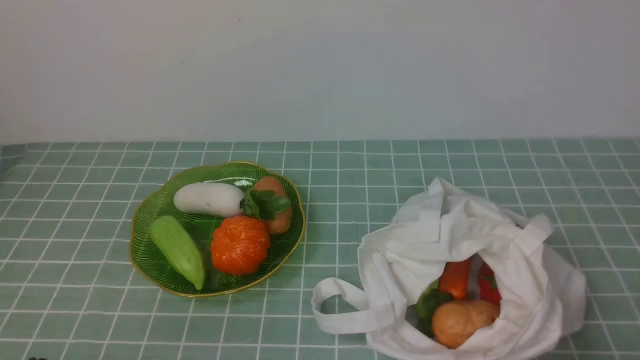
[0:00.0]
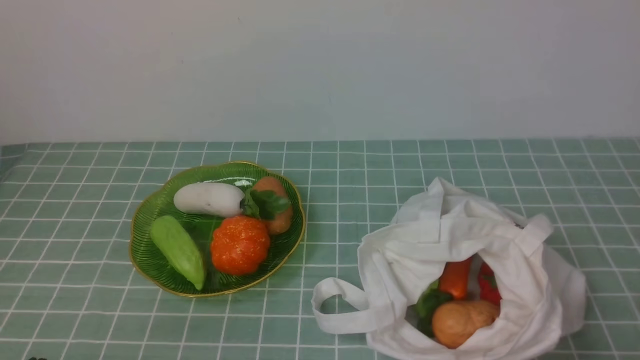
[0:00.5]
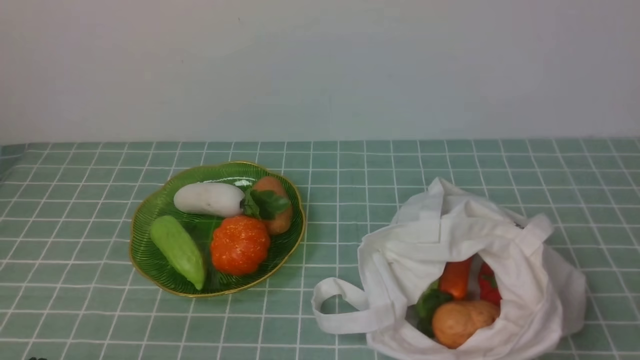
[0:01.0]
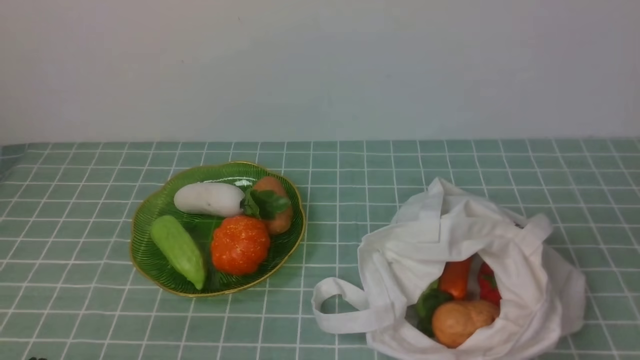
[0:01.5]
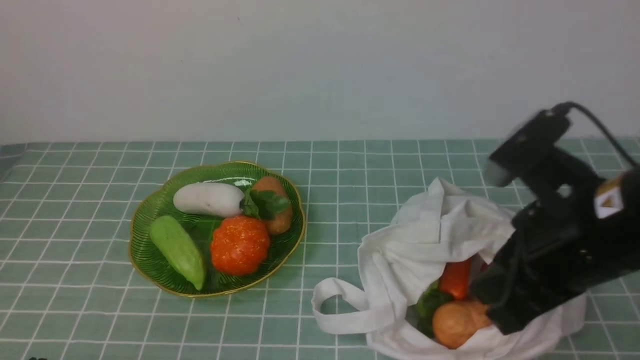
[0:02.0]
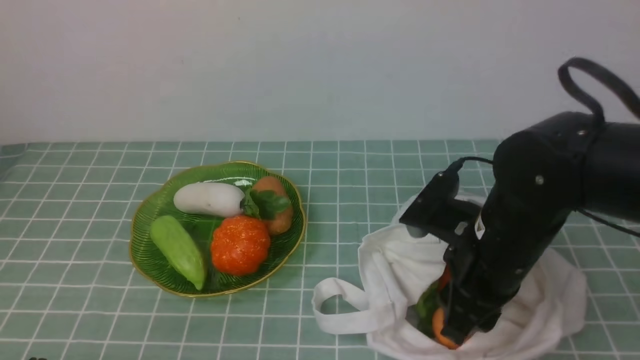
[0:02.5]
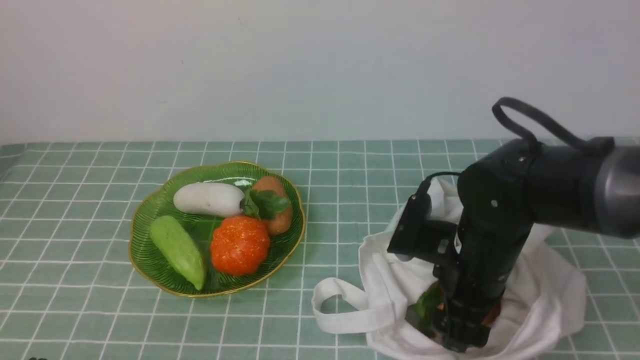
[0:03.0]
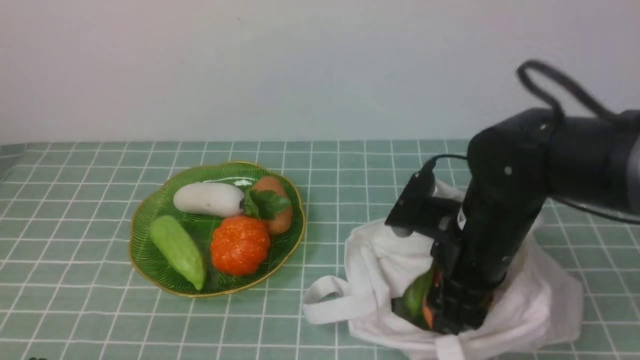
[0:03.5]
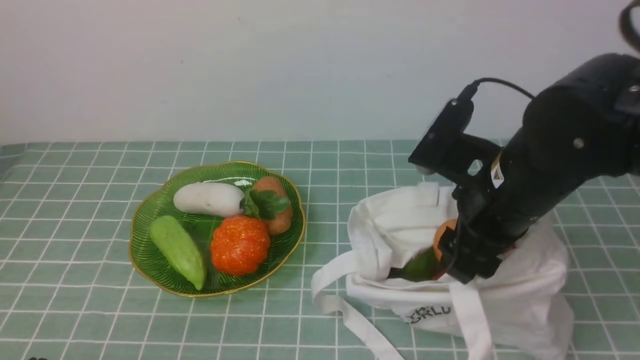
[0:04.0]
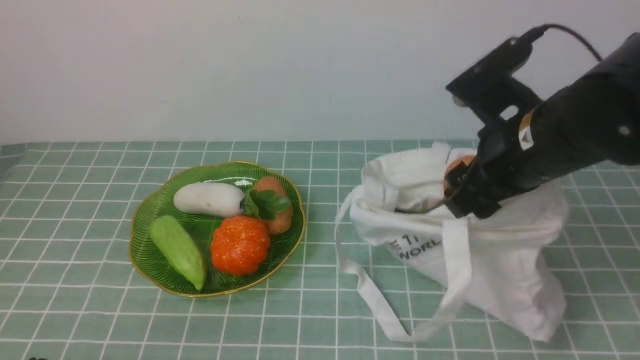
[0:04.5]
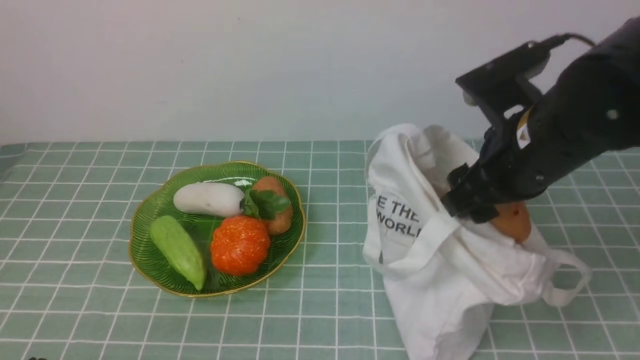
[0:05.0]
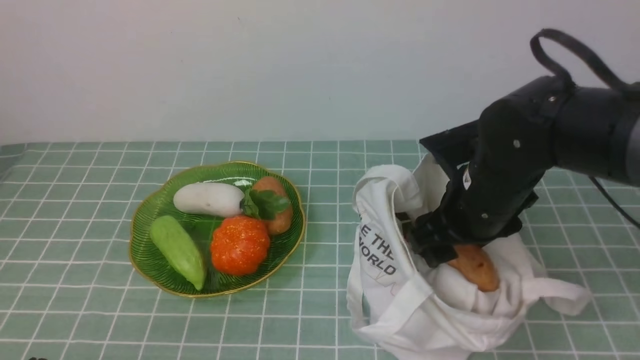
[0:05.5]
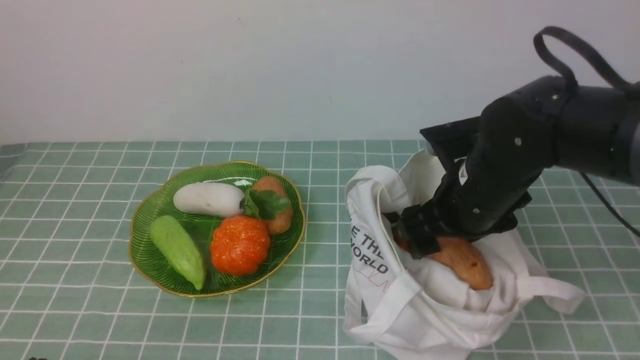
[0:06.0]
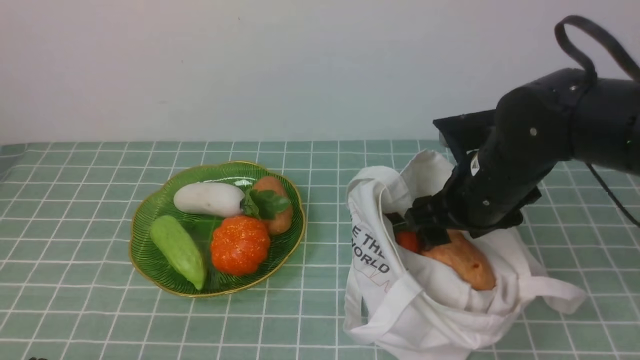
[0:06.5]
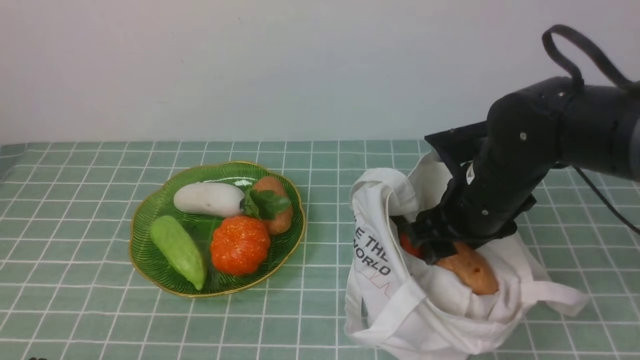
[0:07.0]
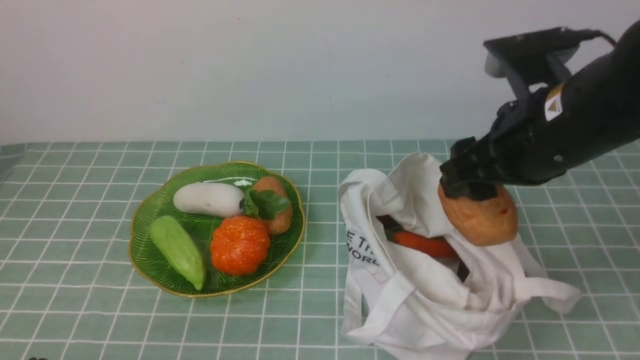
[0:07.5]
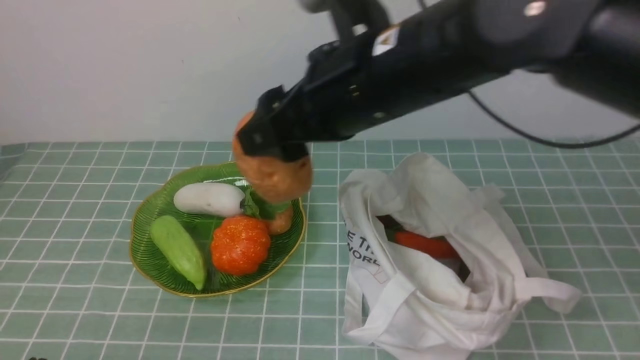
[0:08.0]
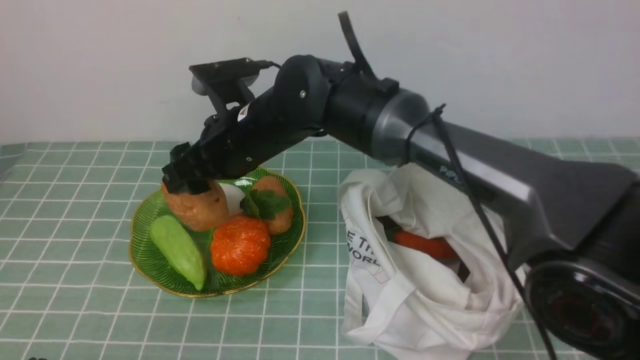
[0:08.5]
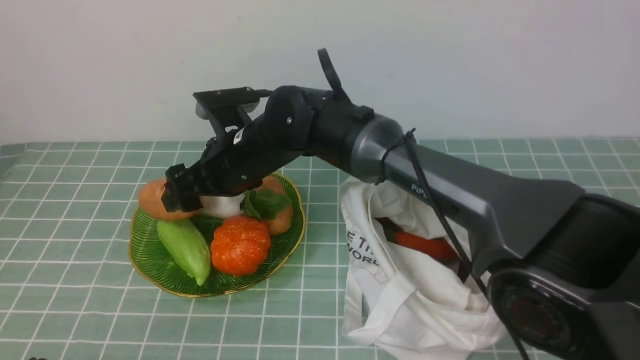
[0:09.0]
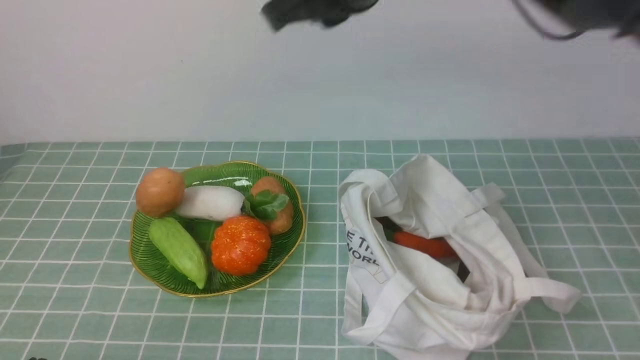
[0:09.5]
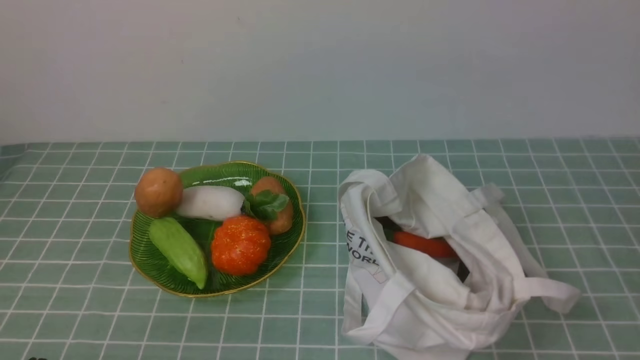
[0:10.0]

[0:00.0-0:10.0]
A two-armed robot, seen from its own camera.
Task of the whole recording: take vegetables from cloth bag on blue coffee tablecloth place on plate.
Step, 0:00.0 to 0:03.0: Grasp the potato with right gripper.
Step, 0:03.5 to 0:09.0: Place the potato on the plate with right gripper.
0:00.0 to 0:02.0: The right gripper moves forward, to the left and upward, some 25 cm.
0:02.0 to 0:04.0: The right gripper heads forward, covering approximately 10 cm, reaches about 10 cm downward, then returns, and opens its fingers.
0:06.0 to 0:08.0: The right gripper is displaced upward and to the left by some 15 cm.
0:08.0 to 0:10.0: The right gripper shifts some 30 cm to the right, upward and backward, and closes its fingers.

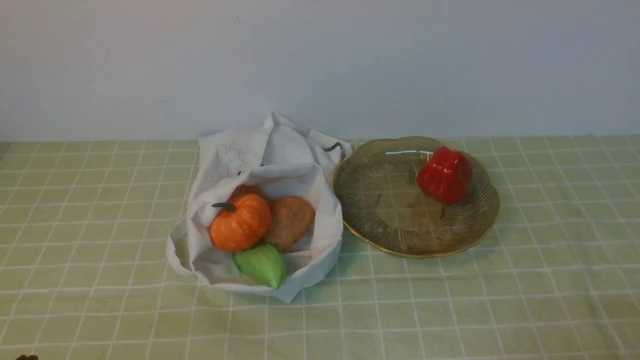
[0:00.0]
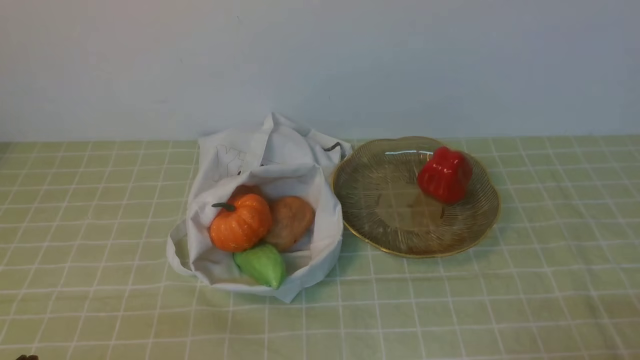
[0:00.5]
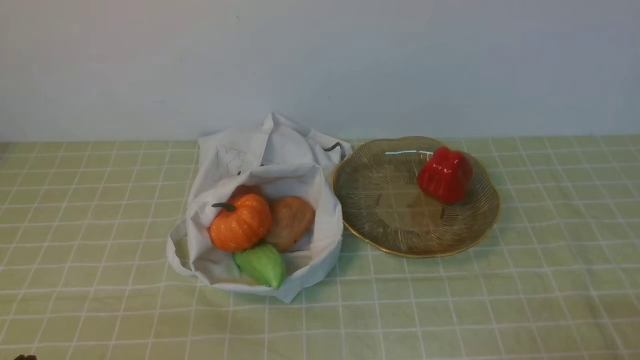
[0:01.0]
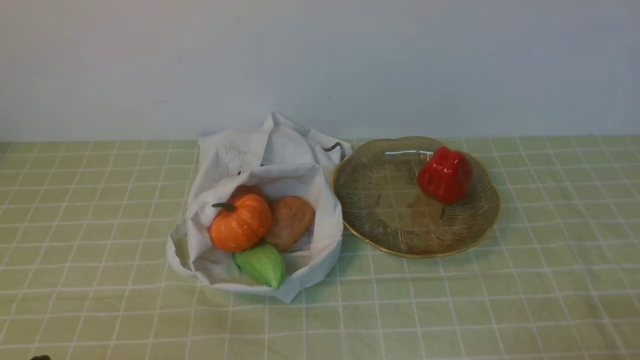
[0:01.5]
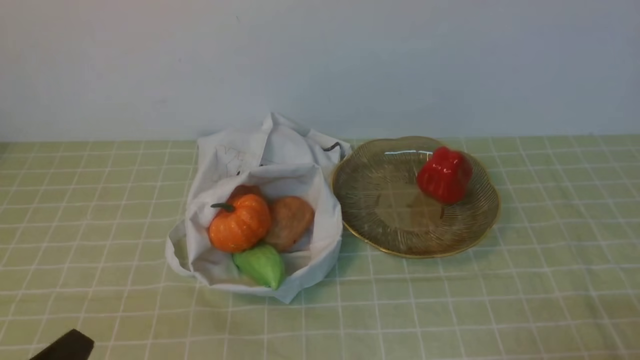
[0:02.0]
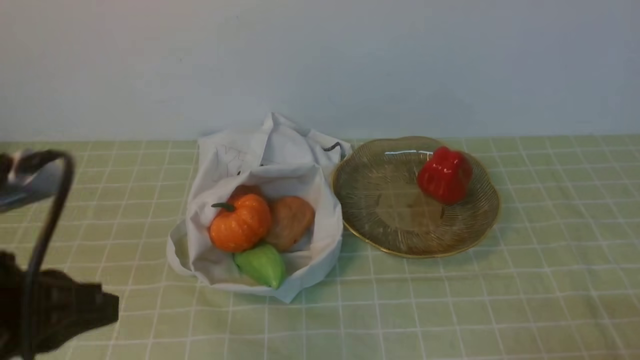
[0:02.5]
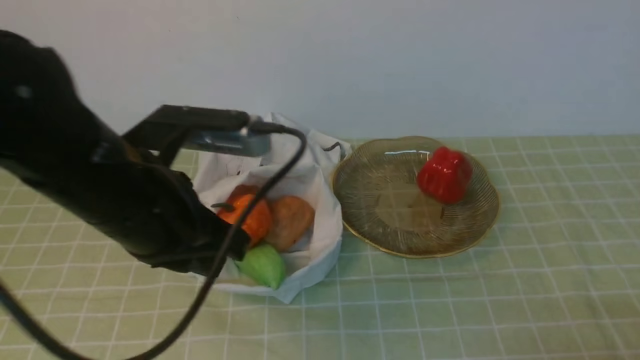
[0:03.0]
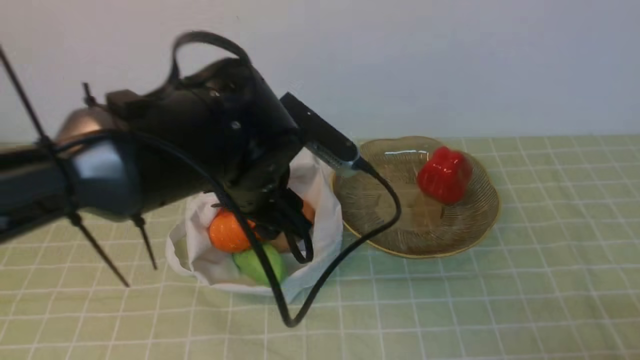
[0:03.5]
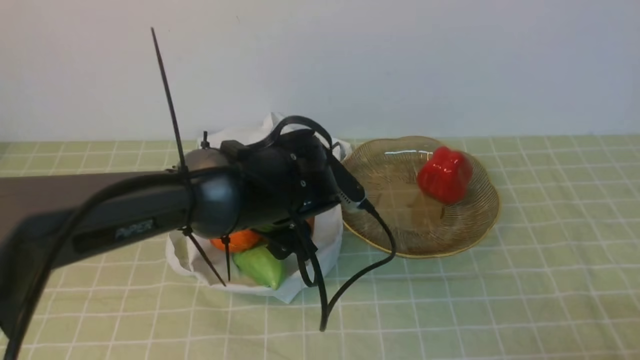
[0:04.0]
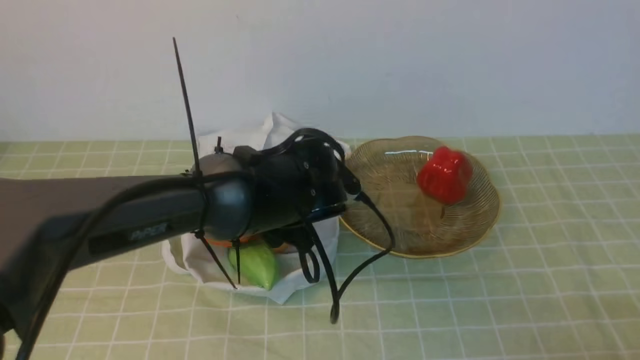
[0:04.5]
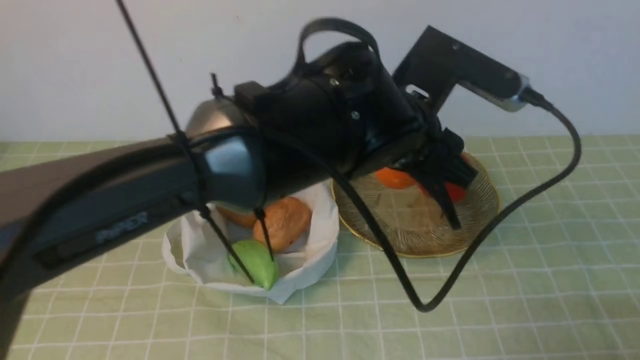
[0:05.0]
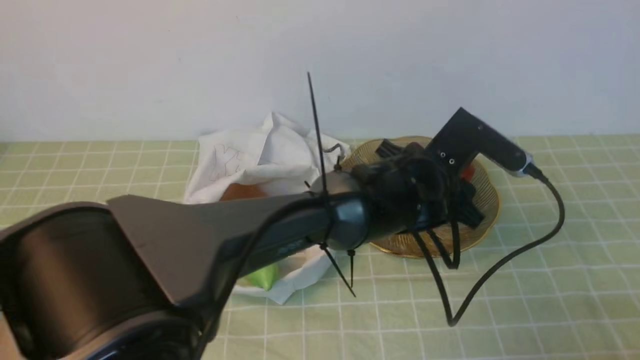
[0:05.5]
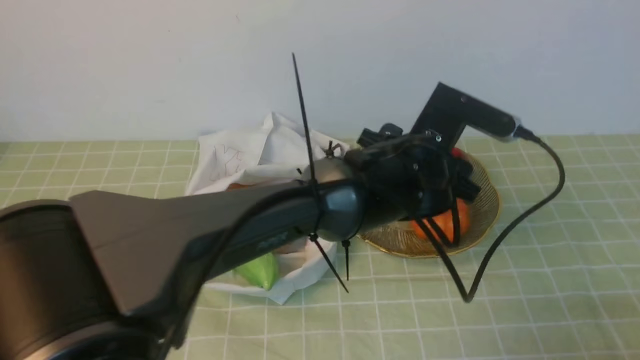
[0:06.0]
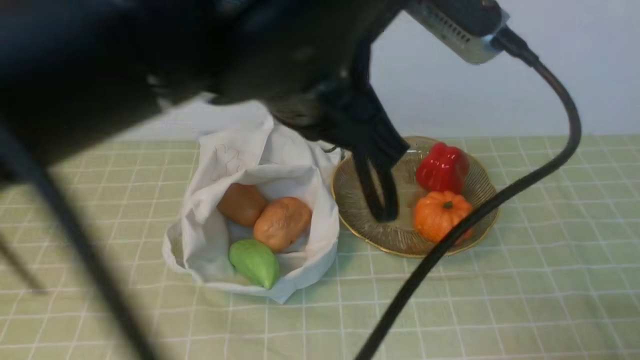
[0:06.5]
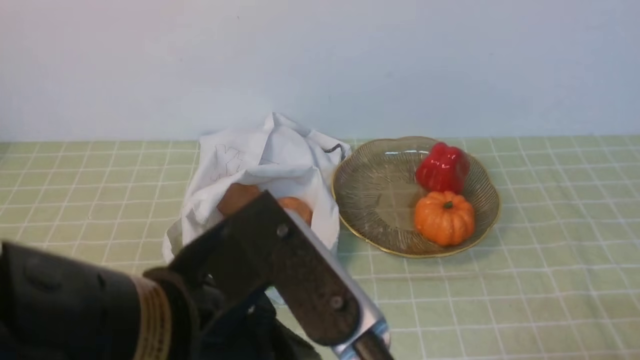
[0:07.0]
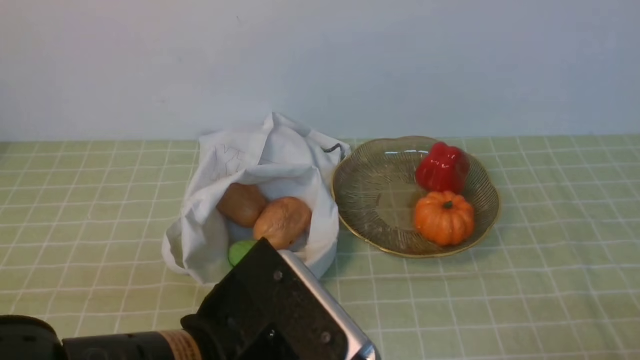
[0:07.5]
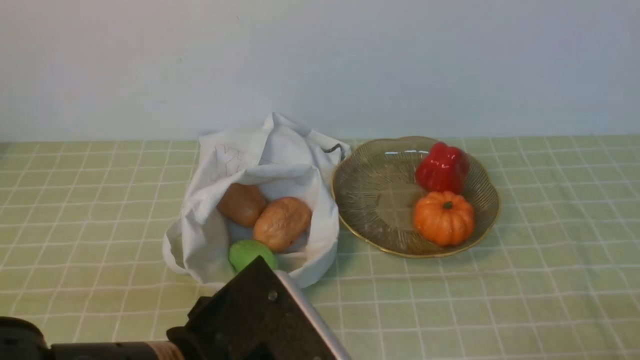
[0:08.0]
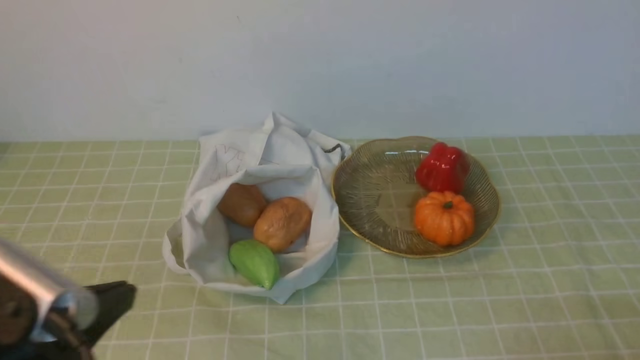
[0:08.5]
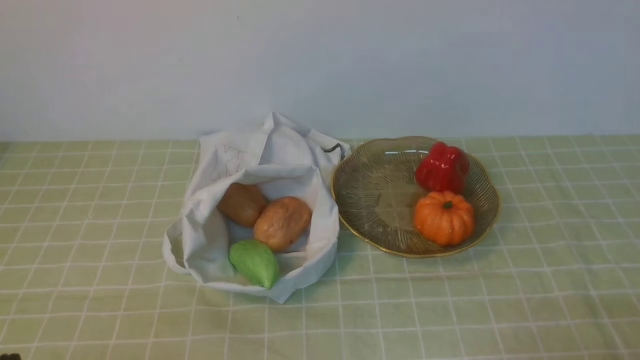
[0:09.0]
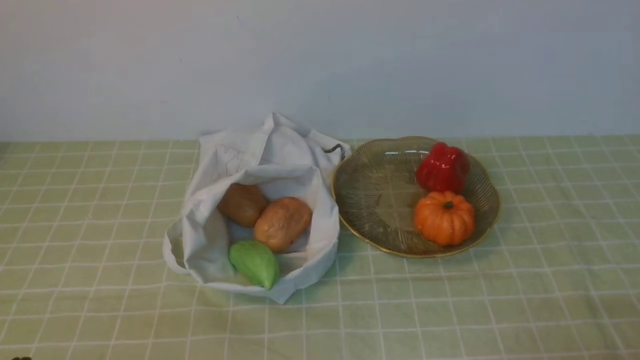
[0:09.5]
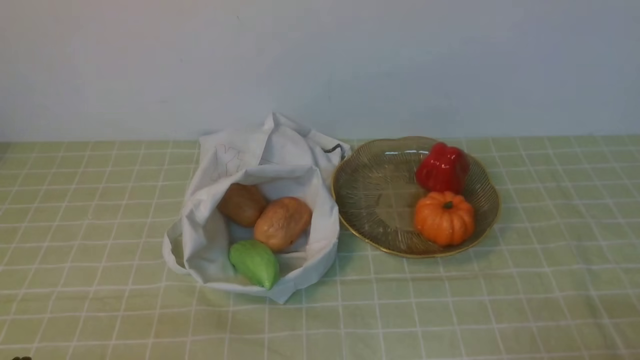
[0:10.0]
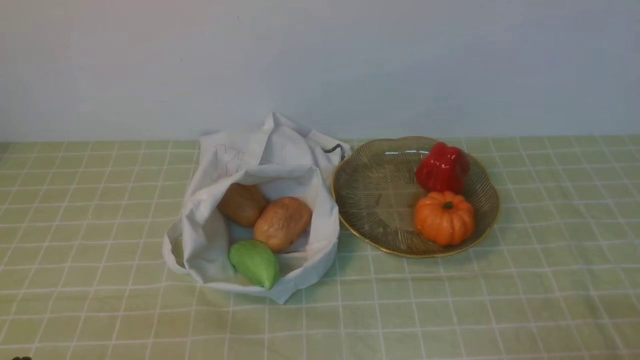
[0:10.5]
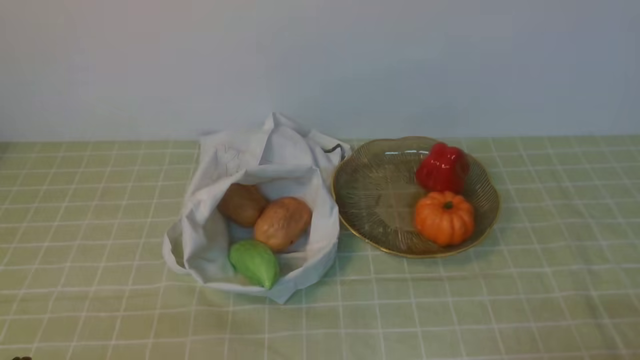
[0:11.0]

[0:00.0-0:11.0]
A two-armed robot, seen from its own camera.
Task of the whole recording: take vegetables from bag on green coffee tablecloth place on plate.
Step, 0:00.0 to 0:04.0: Grasp the pumpkin with left gripper.
Step, 0:04.5 to 0:06.0: Place the pumpkin on the plate with left gripper.
0:02.0 to 0:03.5: The left gripper travels forward and to the right by about 30 cm, and opens its fingers.
0:03.5 to 0:05.5: The left gripper heads to the right, covering some 15 cm.
0:05.5 to 0:07.5: The left gripper moves backward and to the left, about 30 cm, and closes up.
0:07.5 to 0:09.0: The left gripper is displaced to the left and downward by roughly 20 cm.
